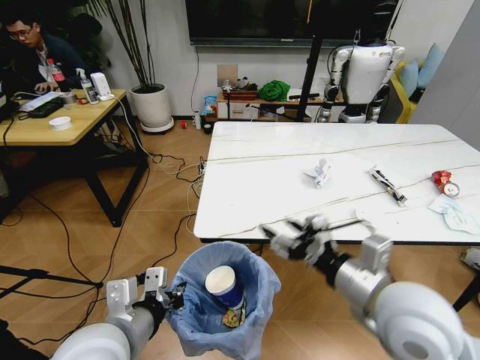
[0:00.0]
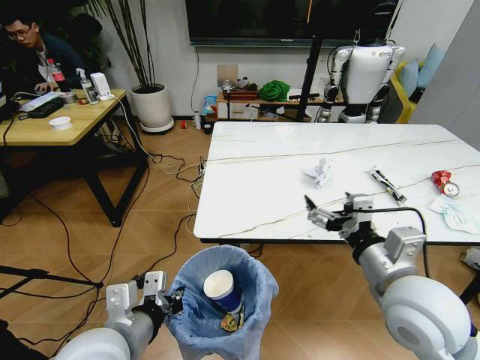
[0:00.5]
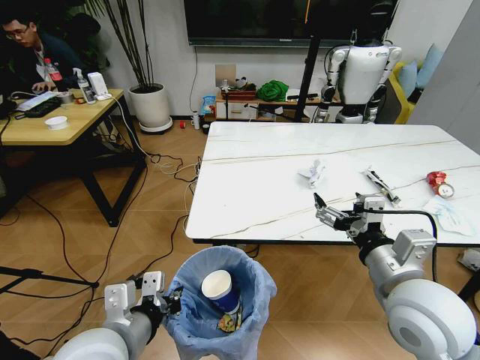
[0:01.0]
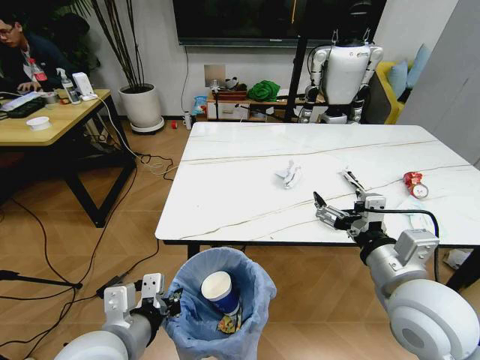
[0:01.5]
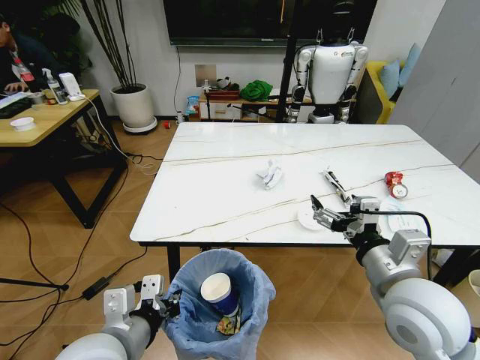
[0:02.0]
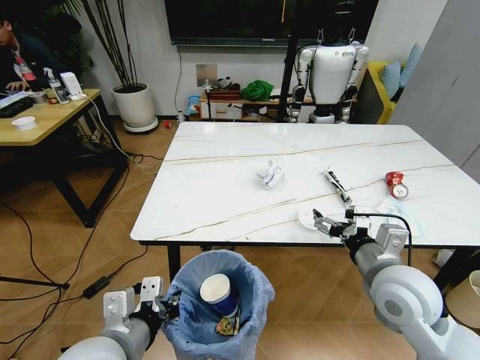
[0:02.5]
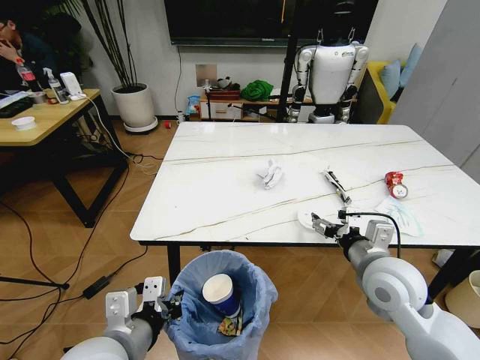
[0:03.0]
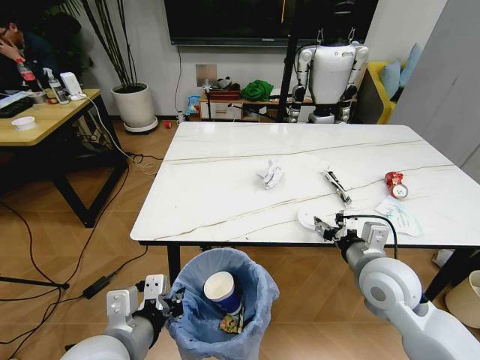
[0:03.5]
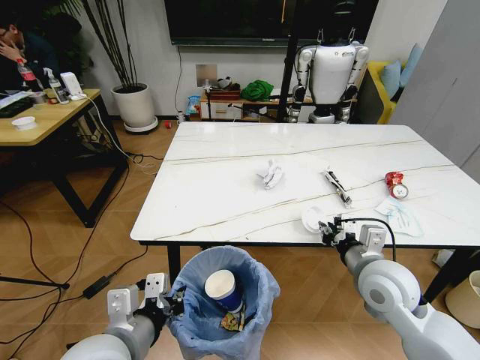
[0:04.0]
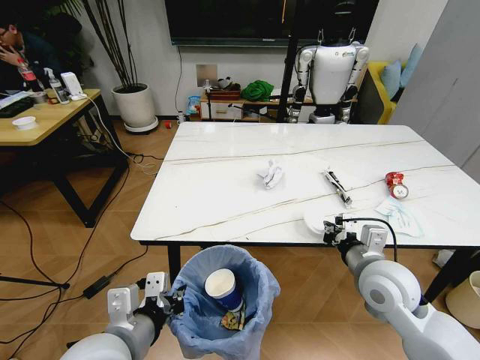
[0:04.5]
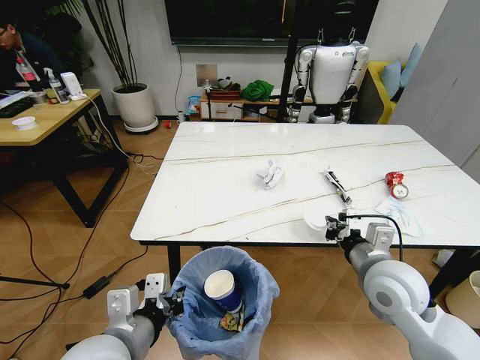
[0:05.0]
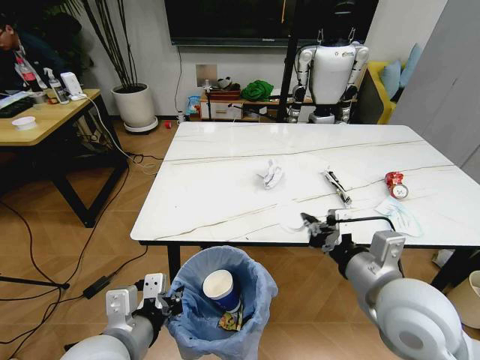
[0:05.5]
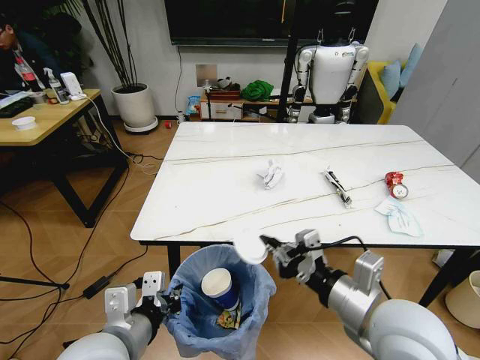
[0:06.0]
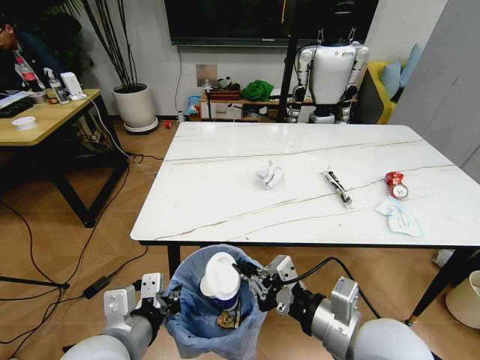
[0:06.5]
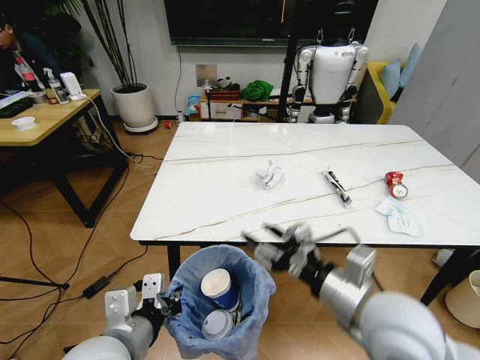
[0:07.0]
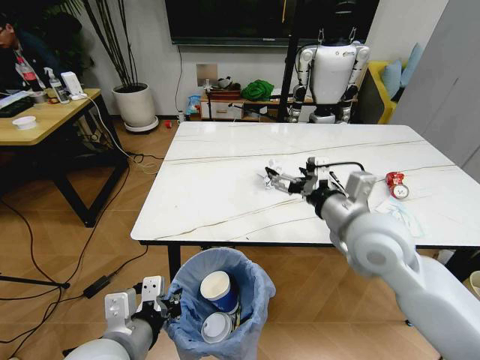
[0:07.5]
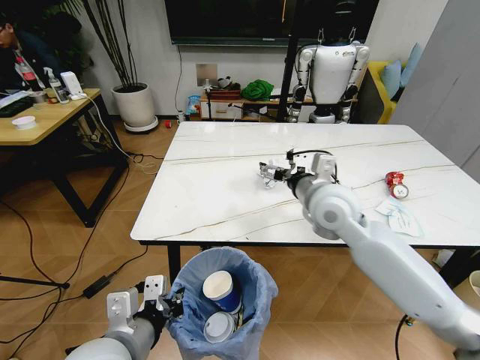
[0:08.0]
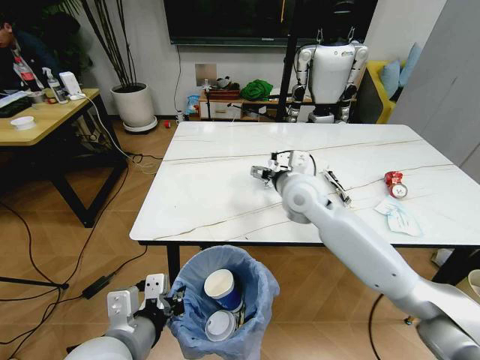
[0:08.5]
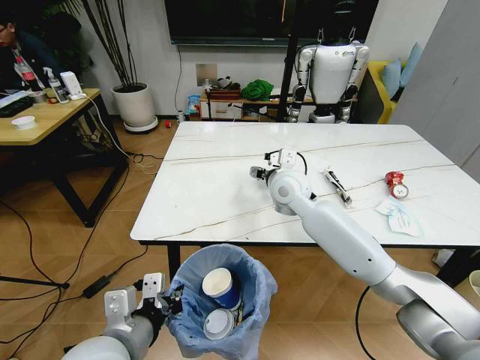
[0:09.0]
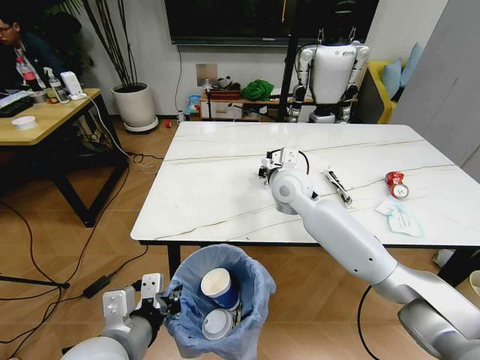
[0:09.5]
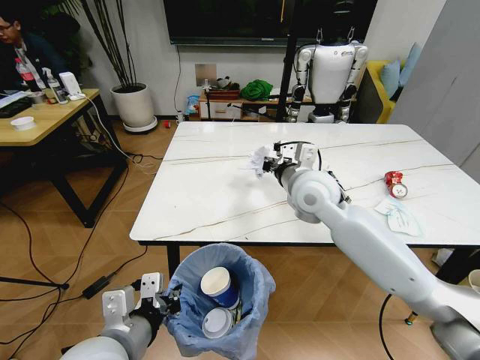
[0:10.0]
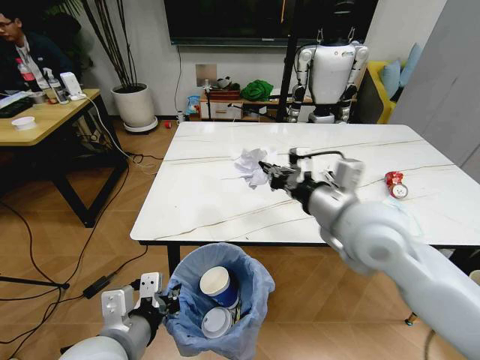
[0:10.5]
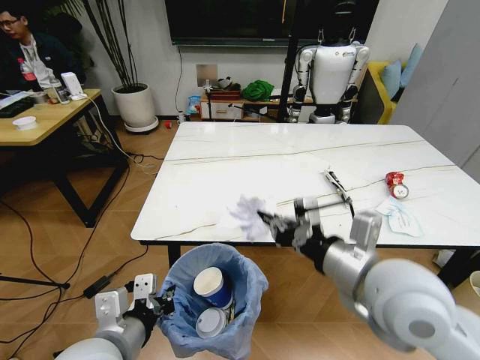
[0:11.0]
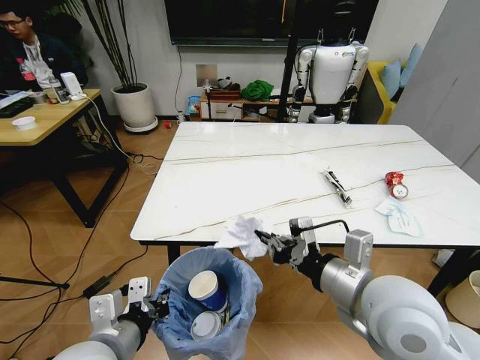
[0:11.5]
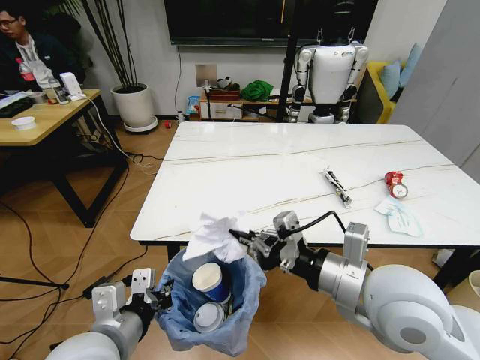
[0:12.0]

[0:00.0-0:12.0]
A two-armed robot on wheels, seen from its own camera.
Task of the whole recording: Pick up the trash bin and place the trash from the table into it.
0:02.0 to 0:04.0: The right gripper moves downward and forward, roughly 10 cm, and closes.
0:04.0 to 0:06.0: The right gripper goes some 15 cm backward, upward and to the left.
0:06.0 to 0:08.0: The right gripper is displaced forward by some 20 cm, and opens.
0:08.0 to 0:10.0: The right gripper closes up.
0:10.0 to 0:12.0: The right gripper moves backward, about 20 cm.

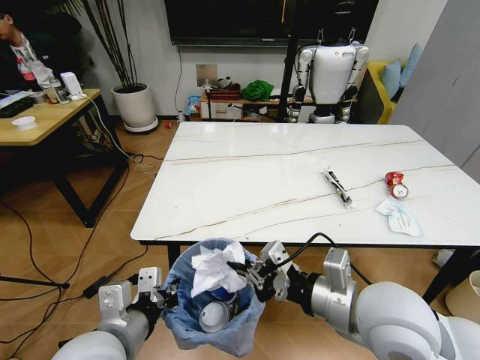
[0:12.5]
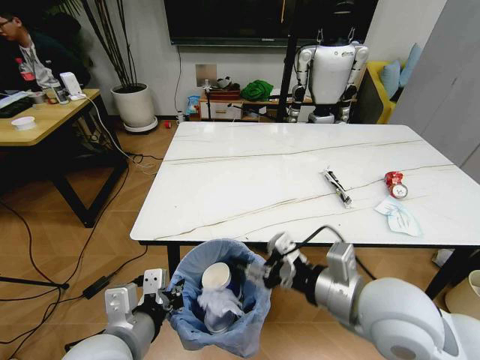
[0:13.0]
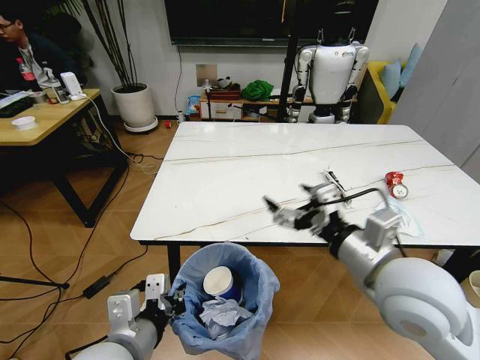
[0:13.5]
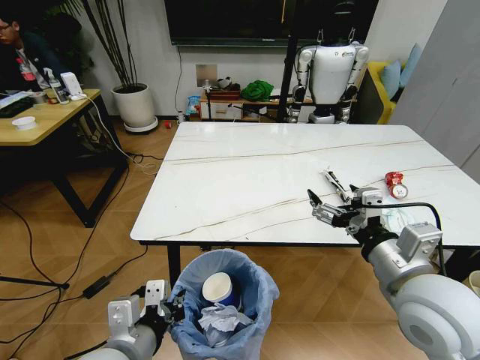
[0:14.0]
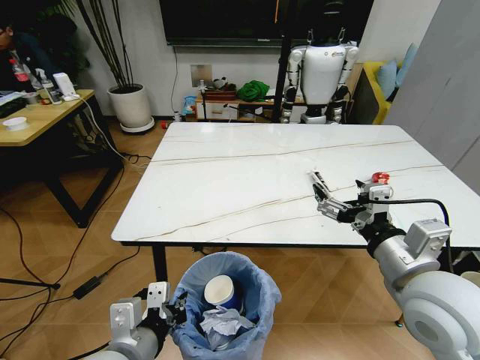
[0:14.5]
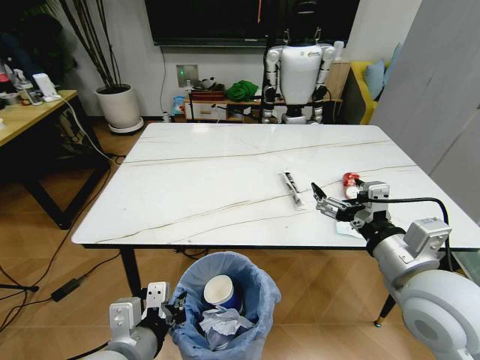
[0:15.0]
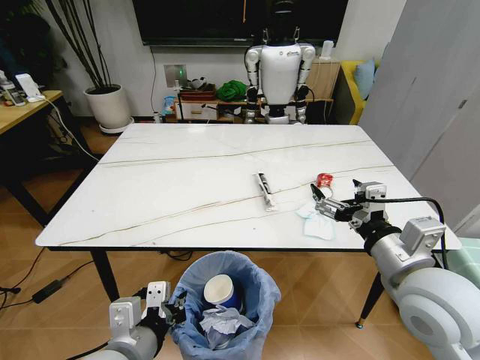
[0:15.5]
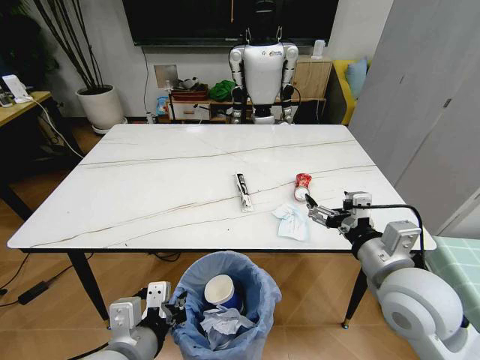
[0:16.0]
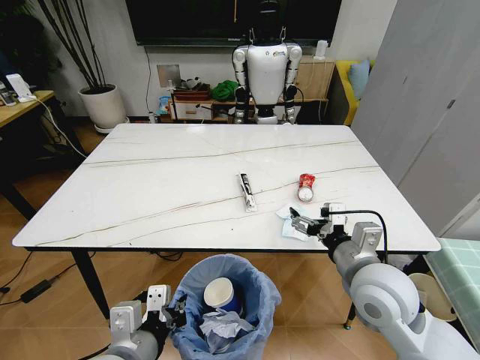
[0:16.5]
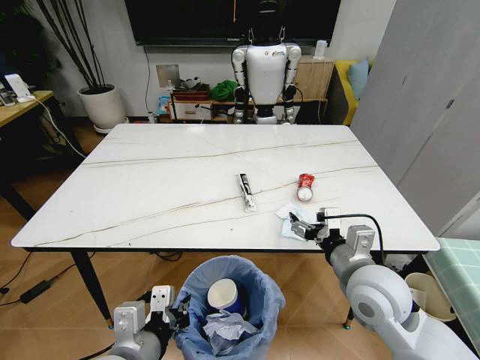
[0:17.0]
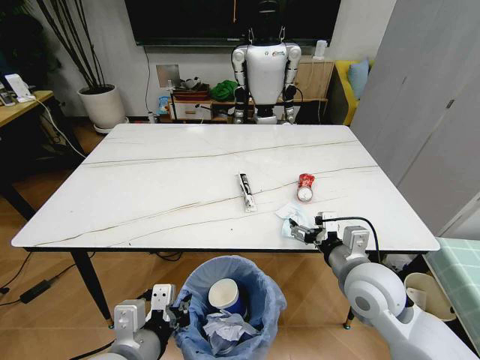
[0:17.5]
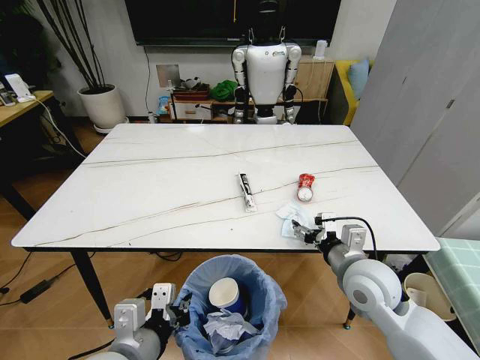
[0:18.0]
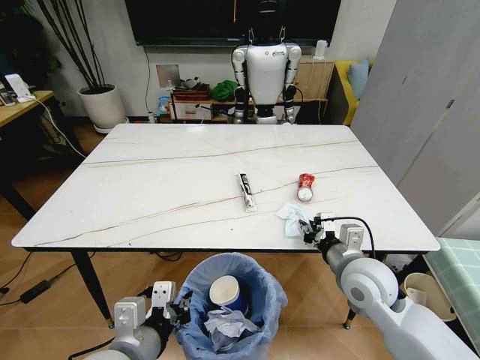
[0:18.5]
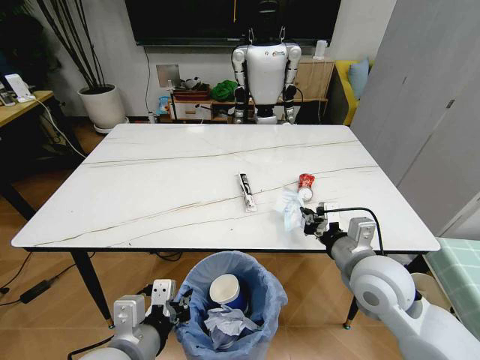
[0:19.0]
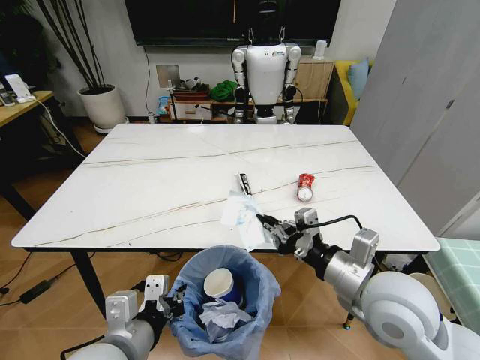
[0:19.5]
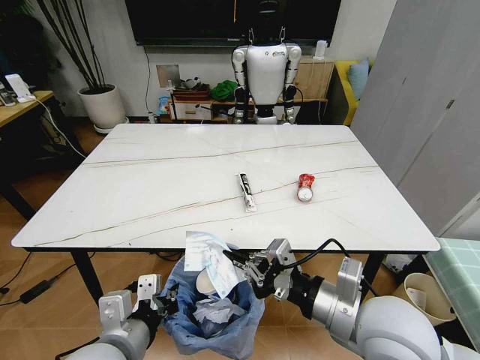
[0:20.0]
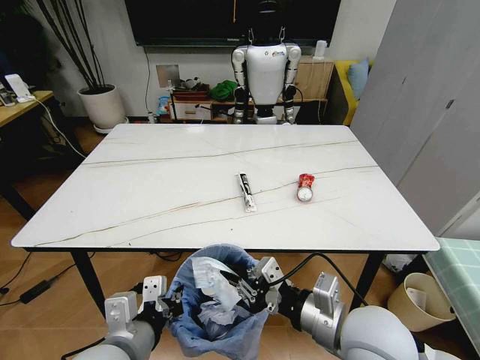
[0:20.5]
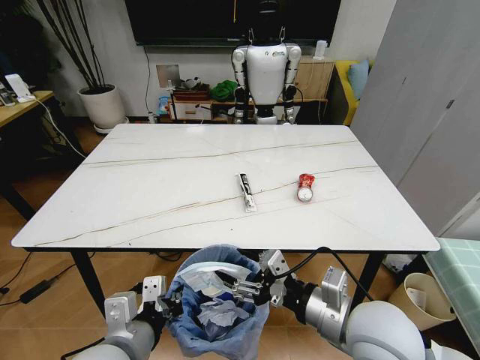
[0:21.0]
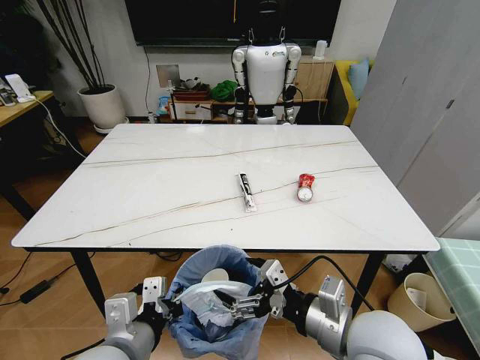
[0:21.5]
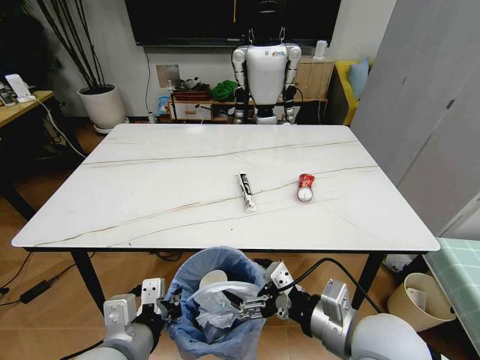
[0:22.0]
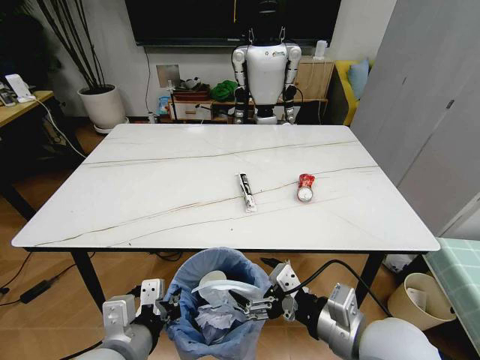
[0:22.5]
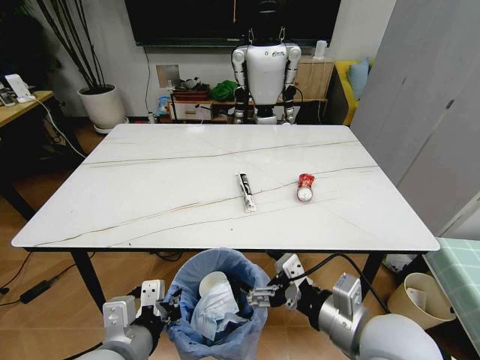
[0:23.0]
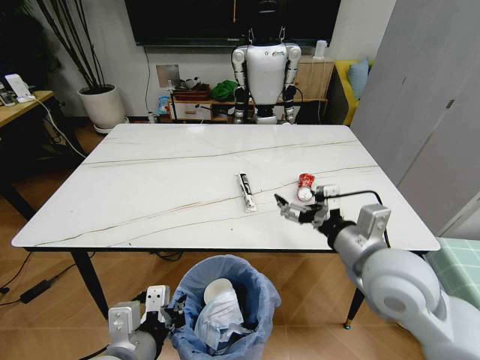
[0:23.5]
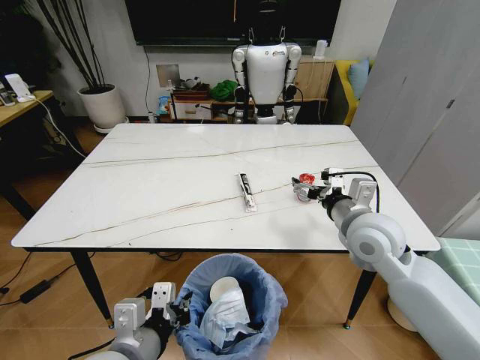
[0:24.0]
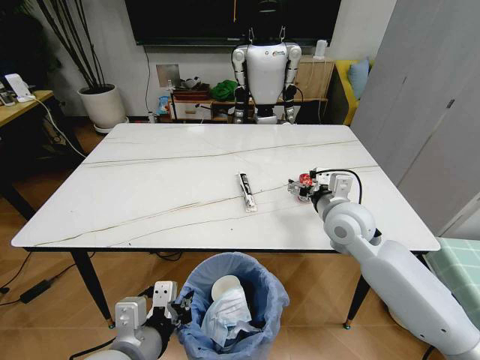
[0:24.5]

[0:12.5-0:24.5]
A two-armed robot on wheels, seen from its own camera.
Task of the whole recording: Pick up the trash bin and place the trash from the table into it.
0:12.5 to 0:14.5: The right gripper shifts roughly 5 cm to the right, and opens up.
0:14.5 to 0:16.5: The right gripper shifts some 5 cm downward.
0:16.5 to 0:18.5: The right gripper shifts some 5 cm downward, and closes.
0:18.5 to 0:20.5: The right gripper travels backward, to the left and upward by approximately 15 cm.
0:20.5 to 0:22.5: The right gripper opens.
0:22.5 to 0:24.5: The right gripper moves forward, about 20 cm.

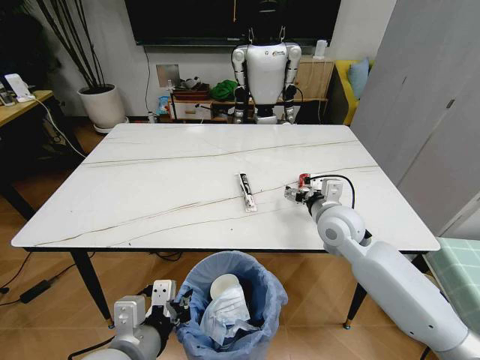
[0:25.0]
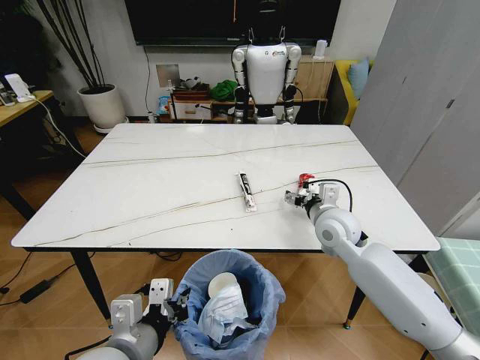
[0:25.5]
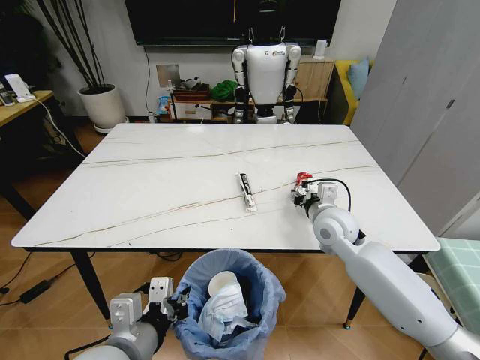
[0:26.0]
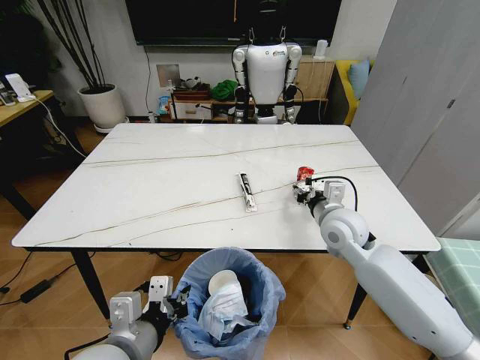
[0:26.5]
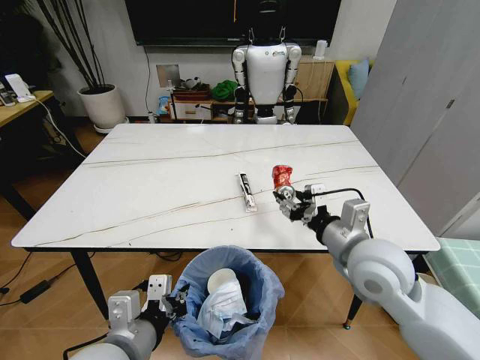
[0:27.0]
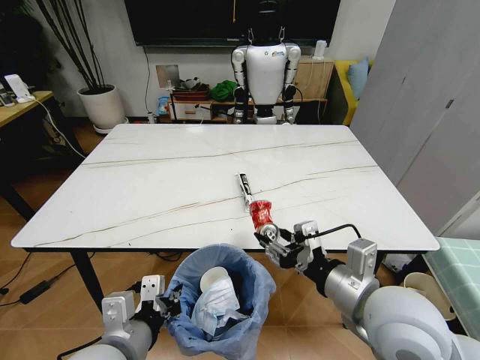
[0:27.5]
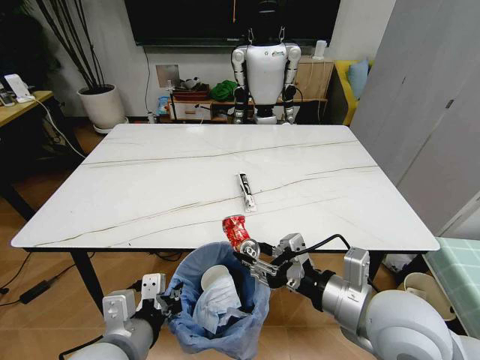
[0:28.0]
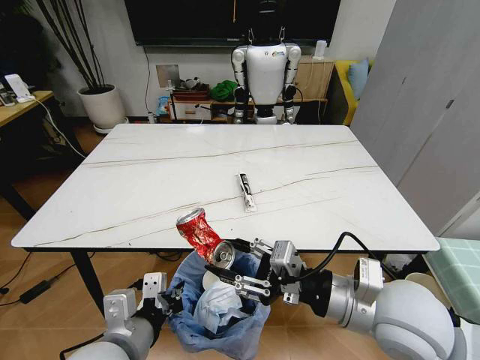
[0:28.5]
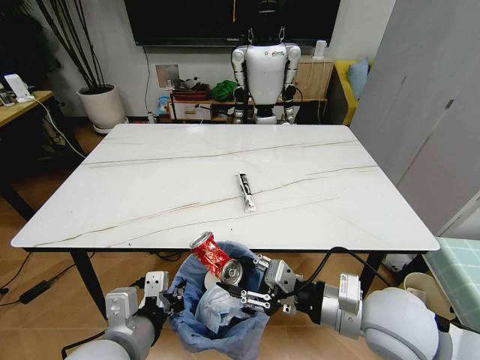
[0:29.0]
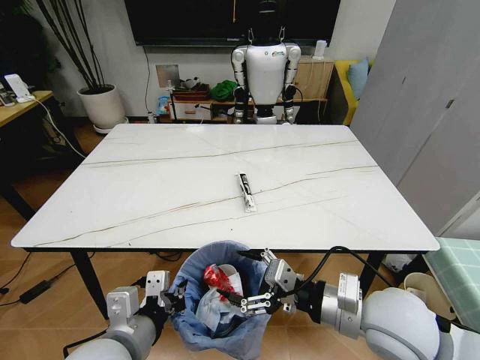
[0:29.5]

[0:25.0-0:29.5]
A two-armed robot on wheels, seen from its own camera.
Task of the whole recording: Pick up the trash bin and place the trash from the table into it.
0:25.0 to 0:27.0: The right gripper moves backward, some 15 cm, and closes up.
0:27.0 to 0:29.5: The right gripper heads backward, covering about 5 cm.
